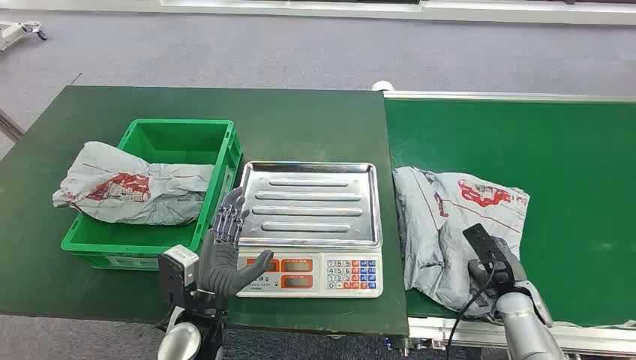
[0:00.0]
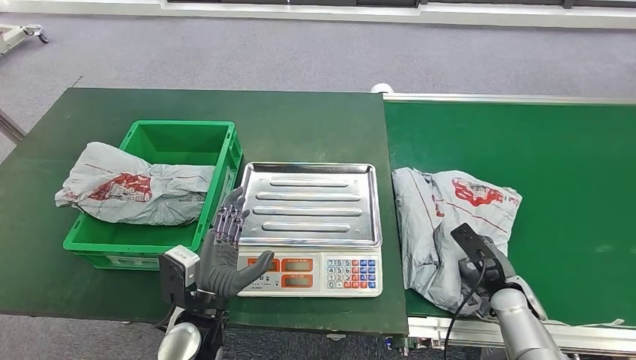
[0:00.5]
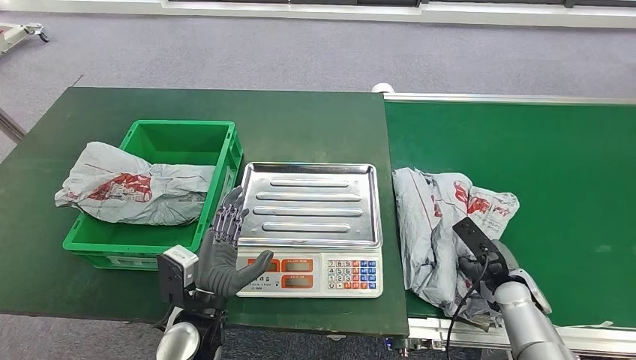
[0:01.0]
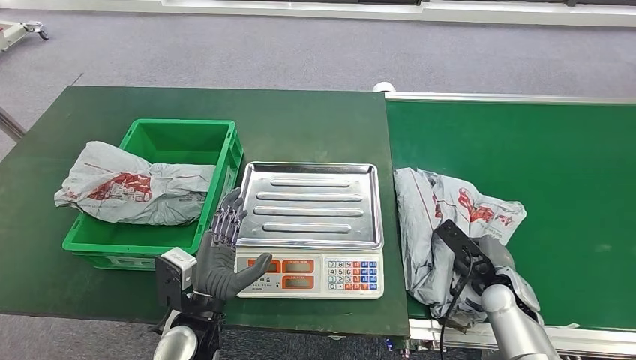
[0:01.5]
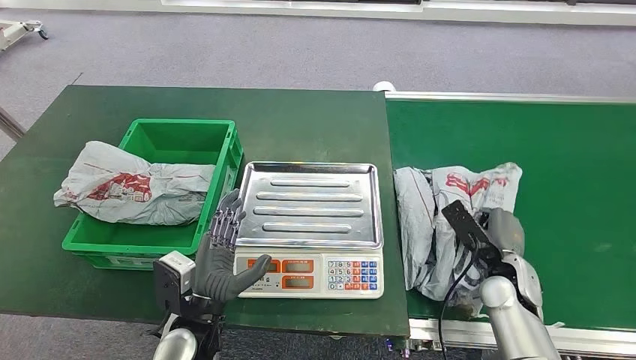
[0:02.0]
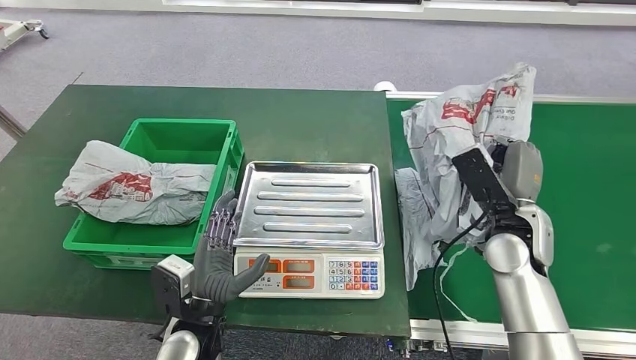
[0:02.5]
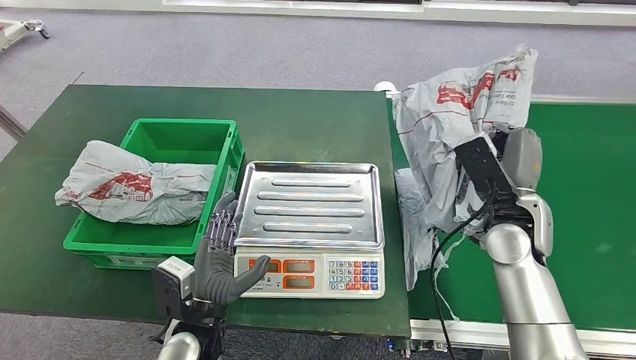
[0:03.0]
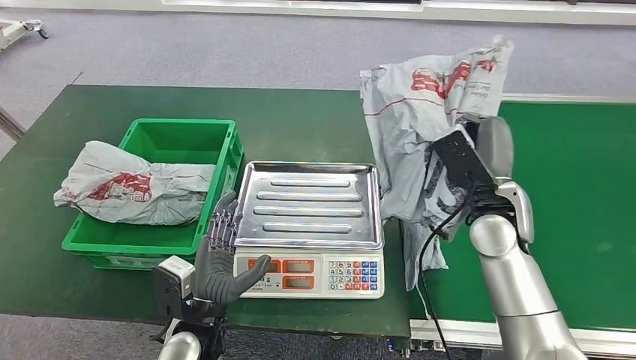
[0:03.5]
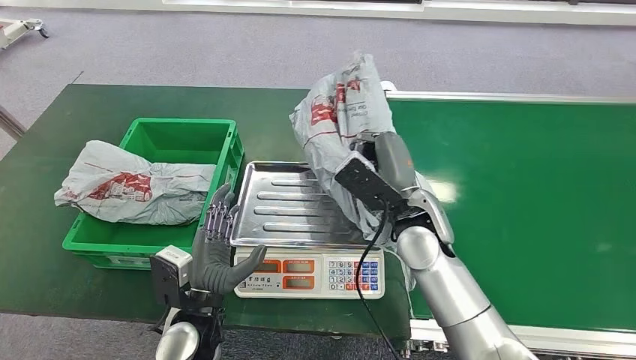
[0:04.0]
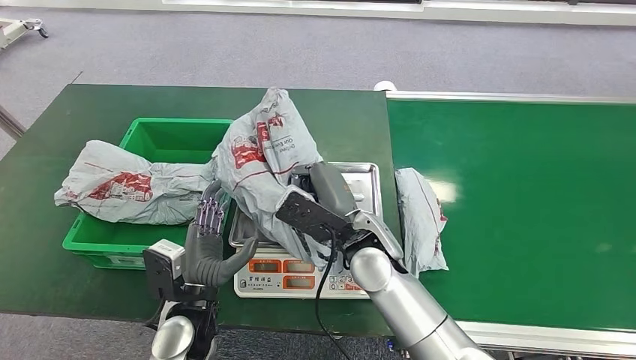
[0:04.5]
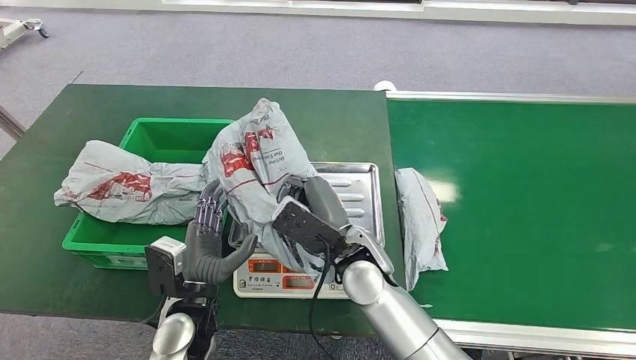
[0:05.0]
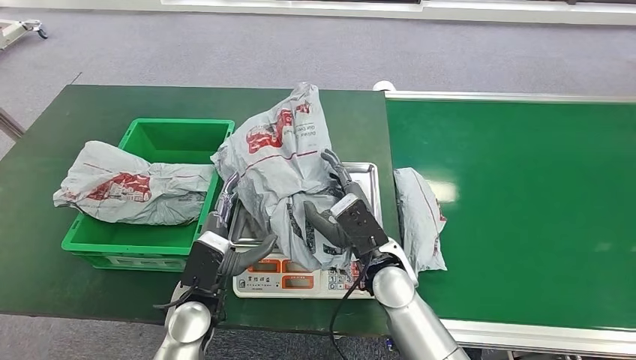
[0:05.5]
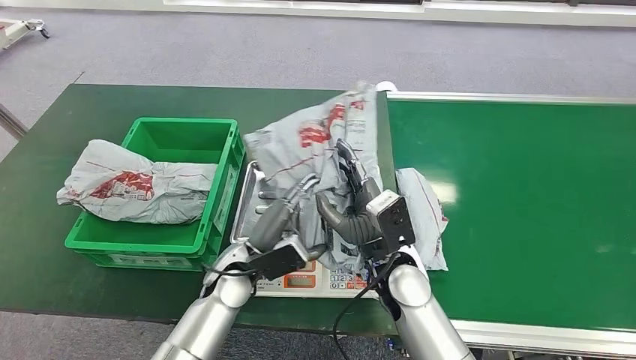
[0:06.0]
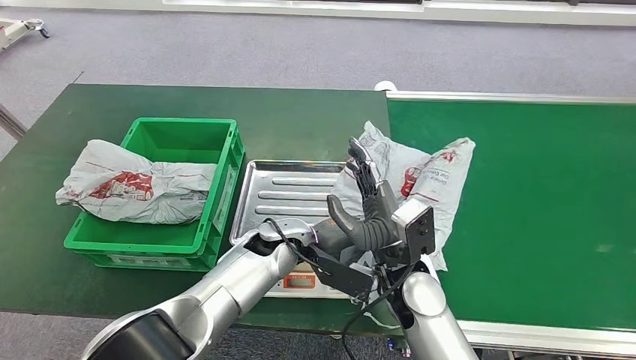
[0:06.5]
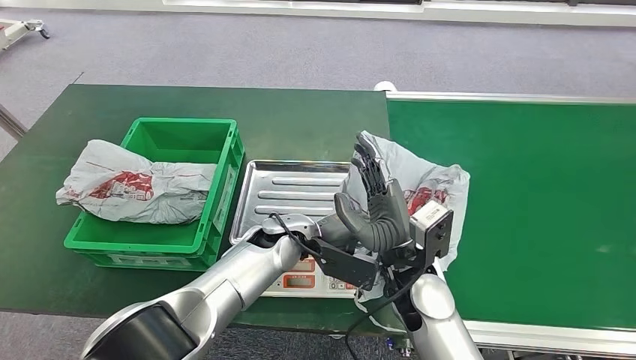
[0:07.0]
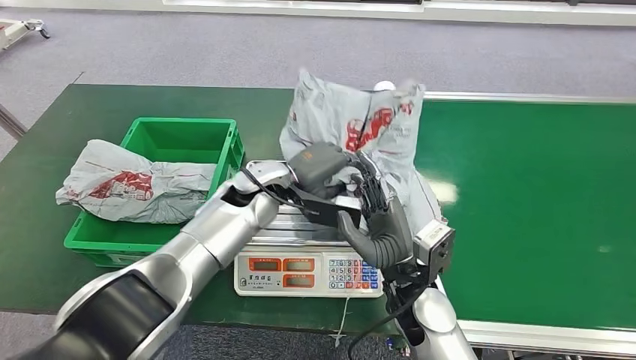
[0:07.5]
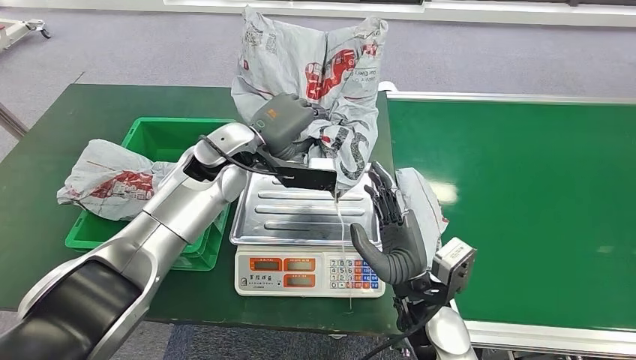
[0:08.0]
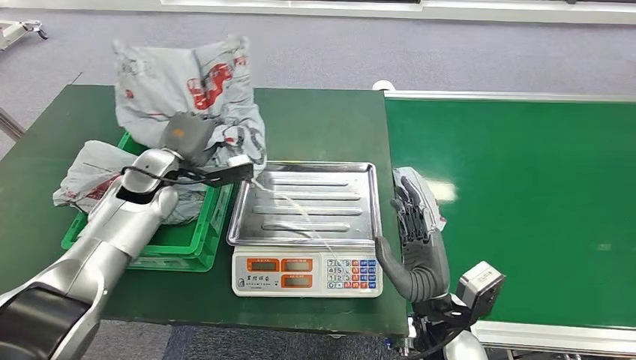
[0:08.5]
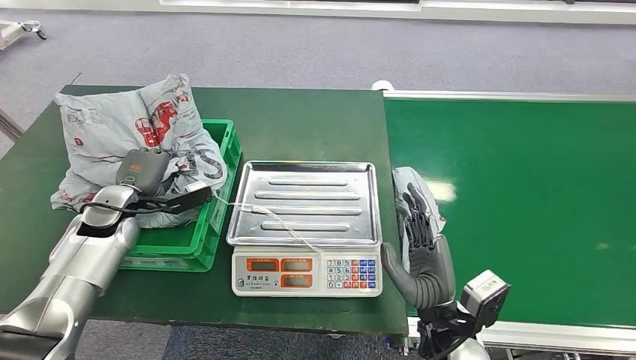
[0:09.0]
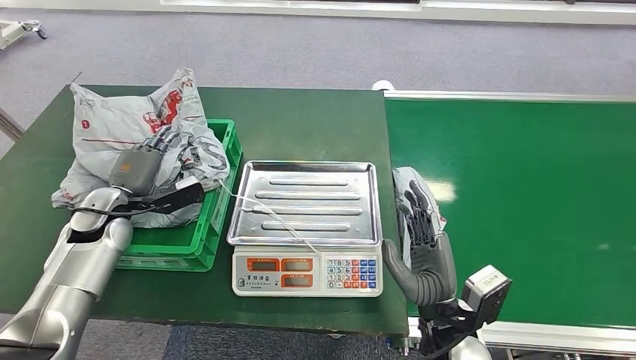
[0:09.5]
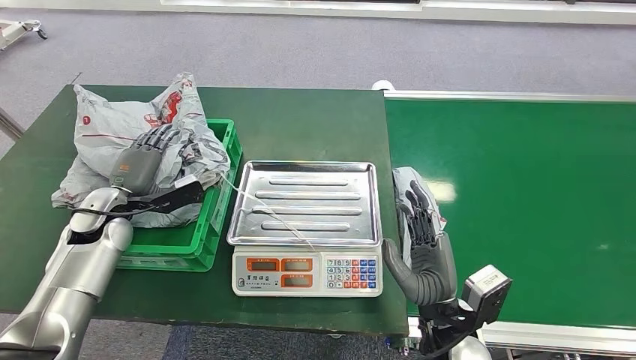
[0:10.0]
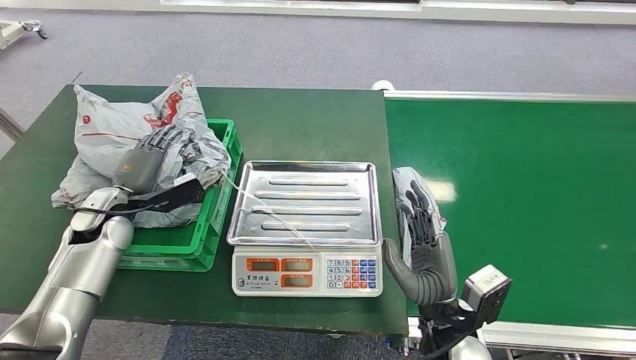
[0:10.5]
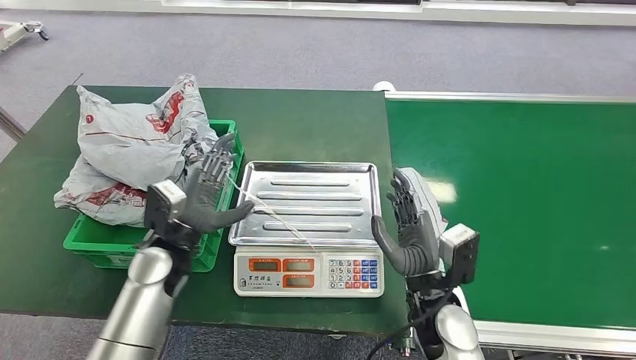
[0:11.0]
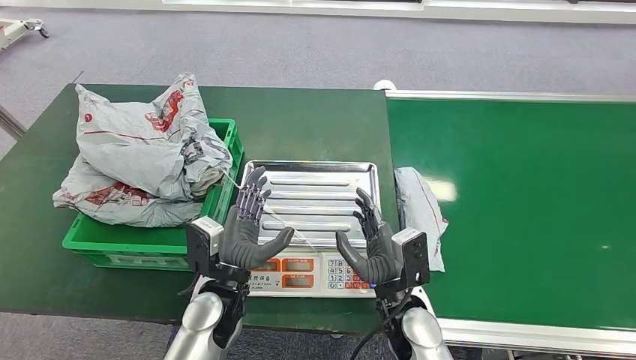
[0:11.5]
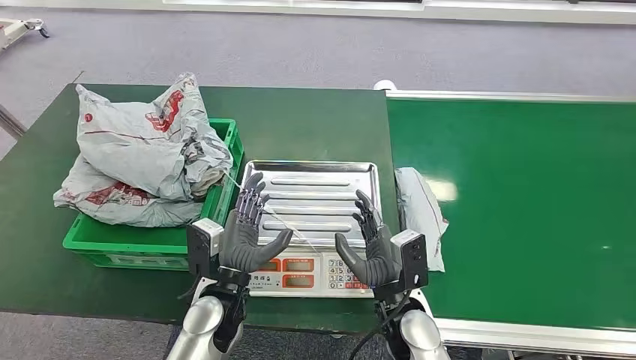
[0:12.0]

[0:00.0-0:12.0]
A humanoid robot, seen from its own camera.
Step, 0:00.0 to 0:02.0: Pick up the package from the conveyor belt.
Step, 0:02.5 to 0:05.5: Place the package onto the inbound machine.
Step, 0:06.0 to 0:08.5: Pick up the package from the inbound machine.
Step, 0:09.0 to 0:11.5: Place the package into the parcel locker.
0:02.0 to 0:04.0: The right hand is displaced to the left and upward by about 25 cm.
